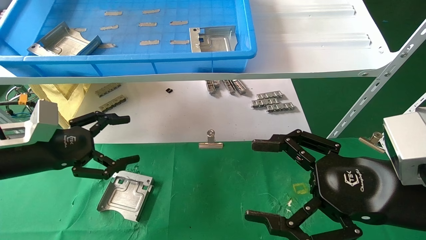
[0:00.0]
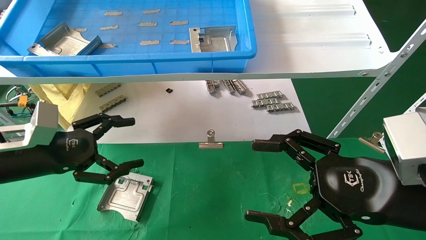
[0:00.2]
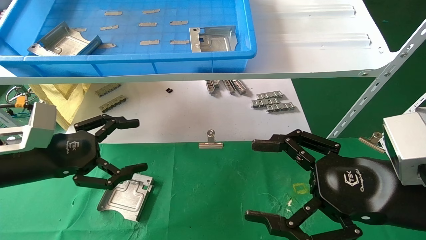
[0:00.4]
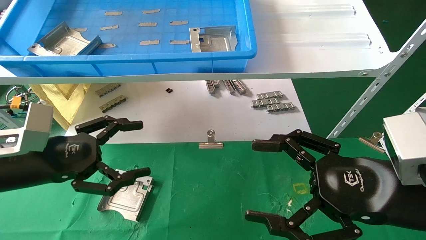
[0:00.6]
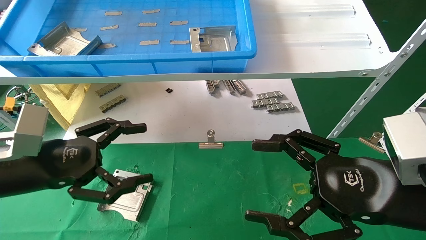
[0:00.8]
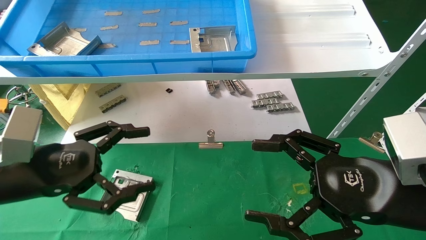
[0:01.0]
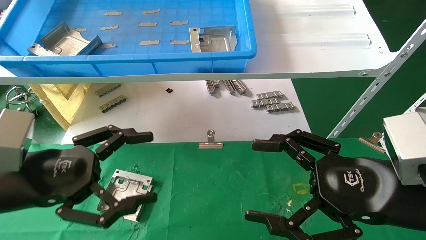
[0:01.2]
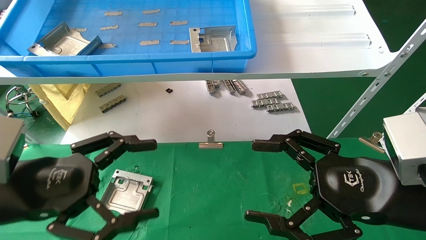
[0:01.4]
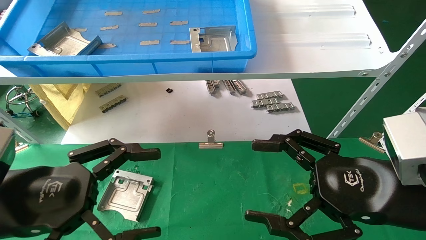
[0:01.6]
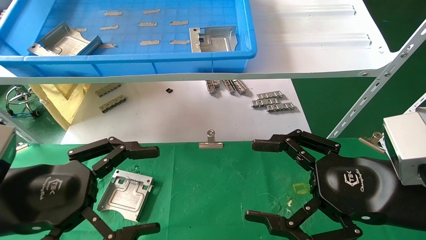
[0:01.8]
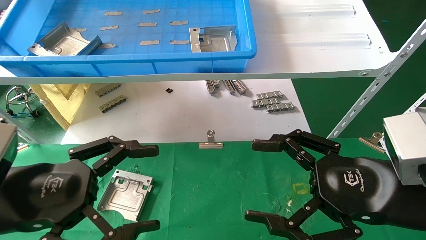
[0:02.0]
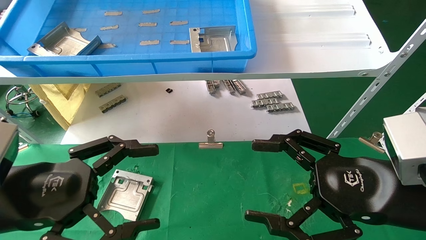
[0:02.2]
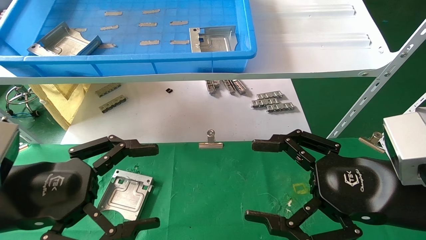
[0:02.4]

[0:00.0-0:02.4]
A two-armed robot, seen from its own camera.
Task of the whole recording: use the mechanical arm to pick up the parts and place them on the table.
0:00.0 to 0:01.2: The left gripper is displaced backward and to the right by some 10 cm.
0:01.2 to 0:02.4: The grippers stay close to where they were, moving slightly.
